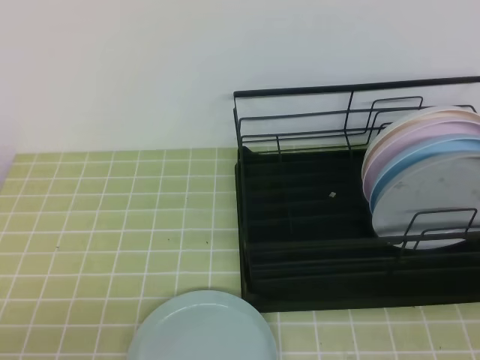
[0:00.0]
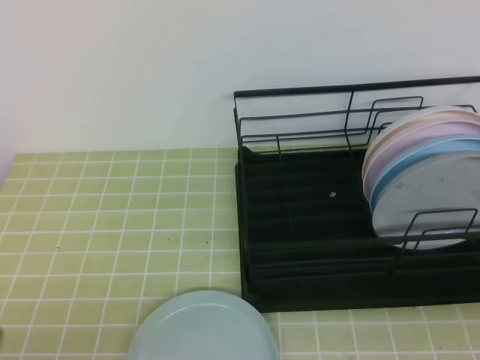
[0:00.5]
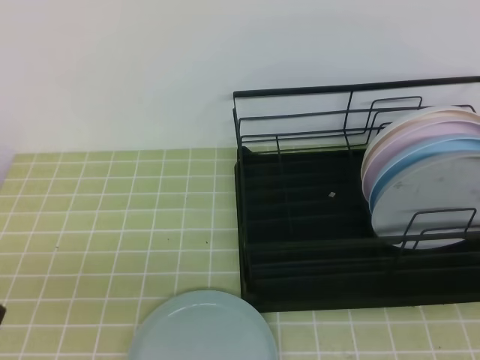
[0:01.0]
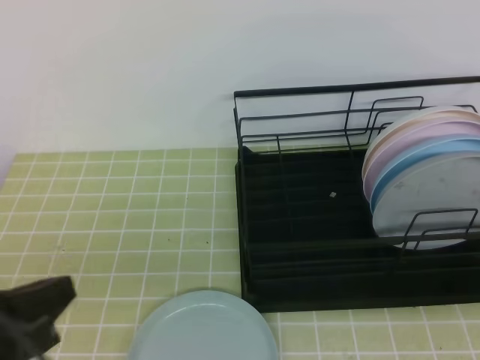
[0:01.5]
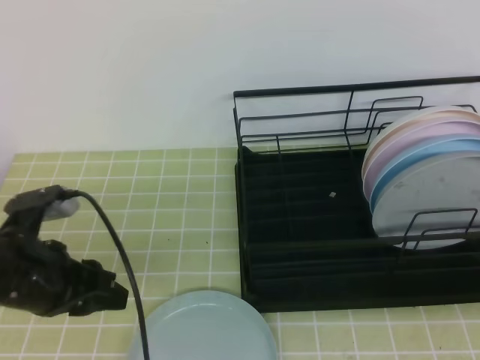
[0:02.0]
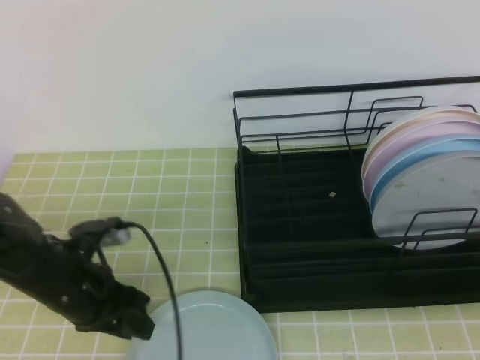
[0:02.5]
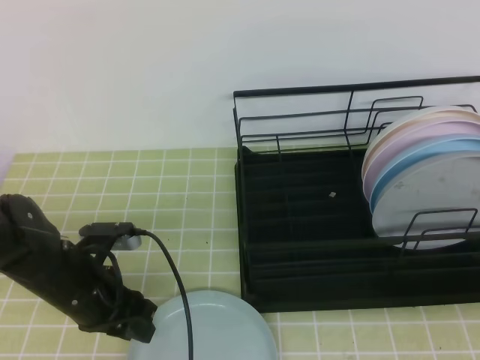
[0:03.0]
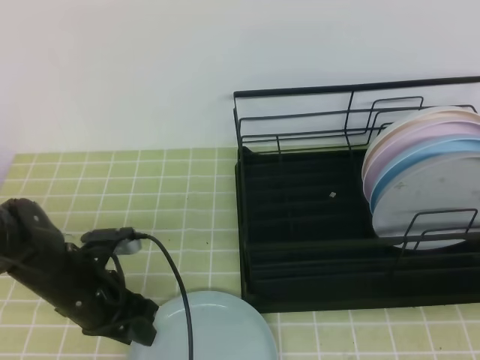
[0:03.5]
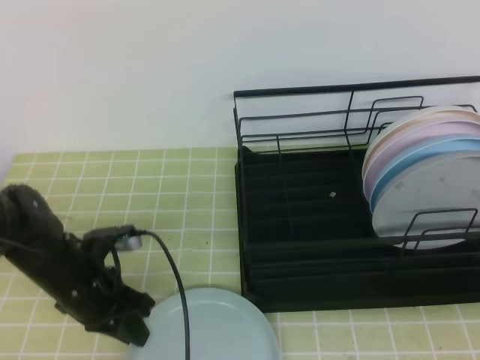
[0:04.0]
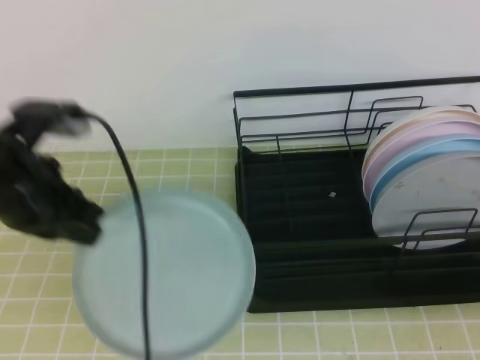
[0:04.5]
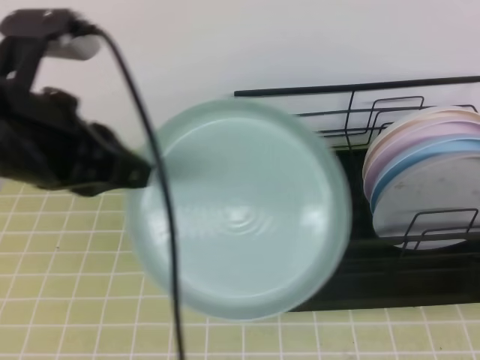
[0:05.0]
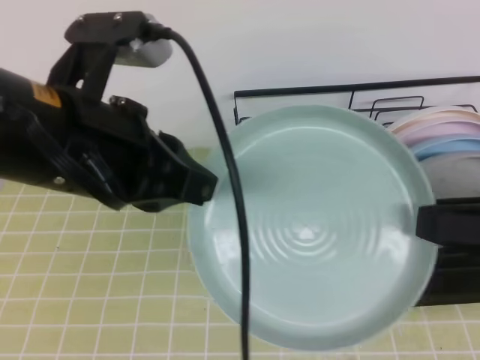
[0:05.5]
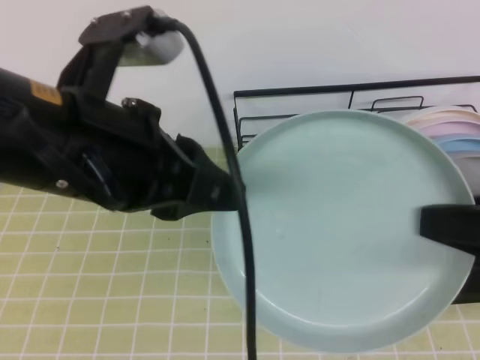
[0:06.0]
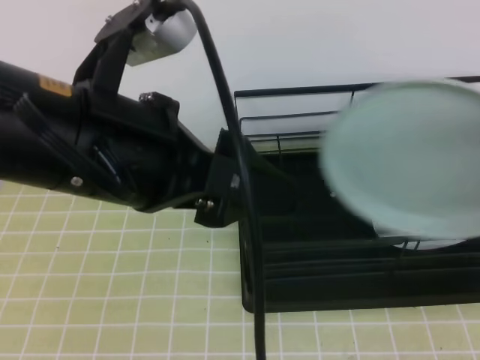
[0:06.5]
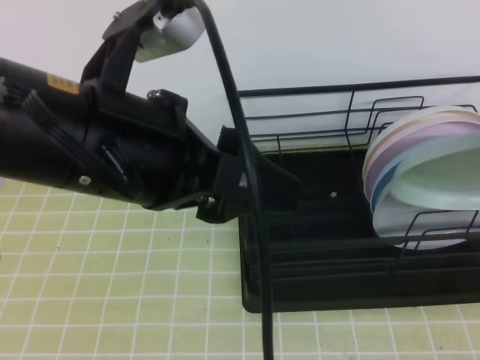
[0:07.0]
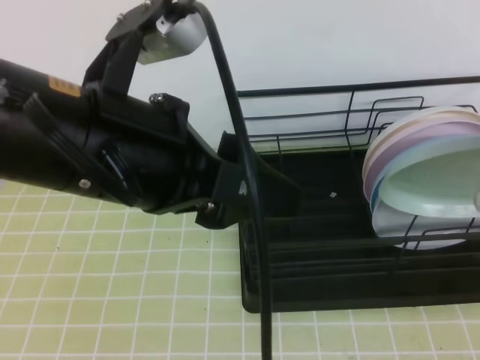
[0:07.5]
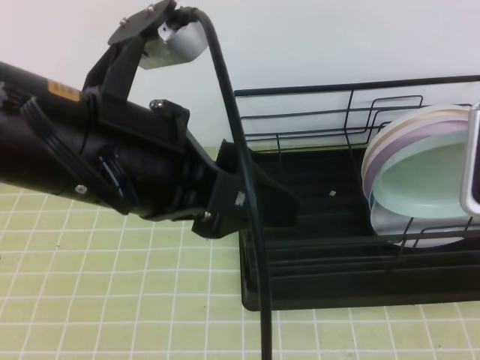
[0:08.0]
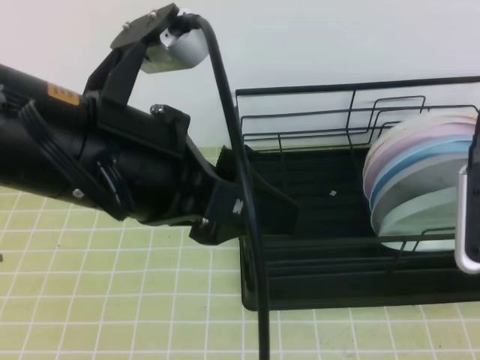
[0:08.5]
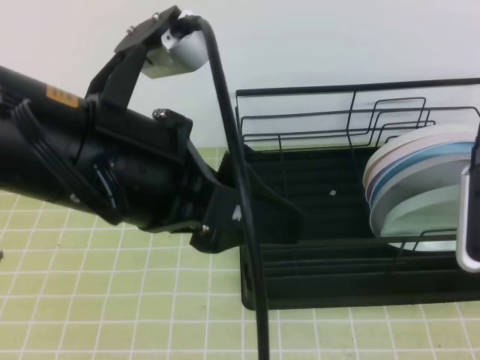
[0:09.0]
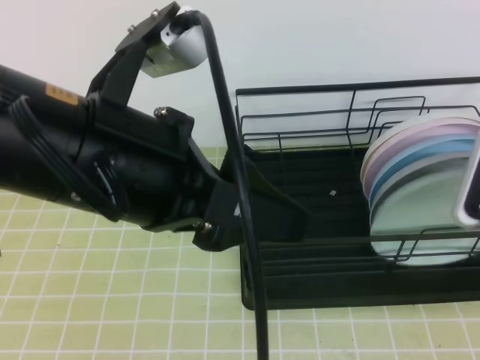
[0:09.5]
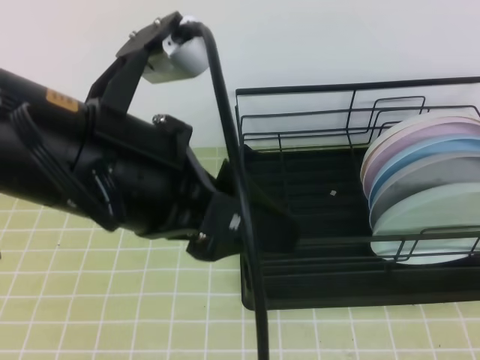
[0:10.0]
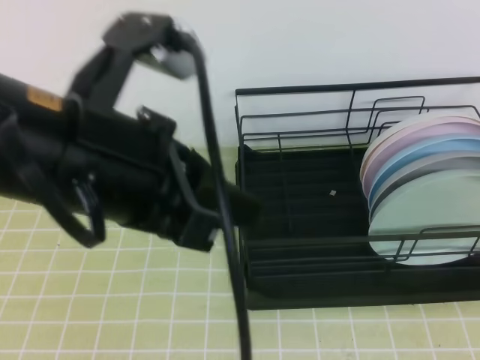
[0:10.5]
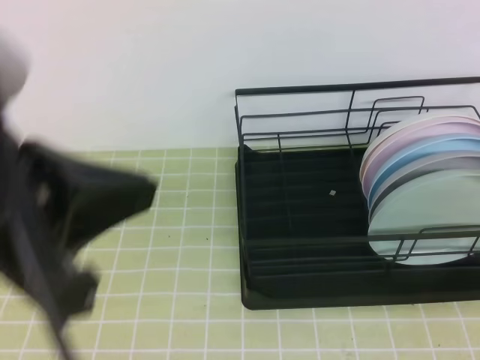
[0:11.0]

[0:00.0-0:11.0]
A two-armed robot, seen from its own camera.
Step, 0:00.0 to 0:03.0: Left grab the green plate.
Step, 0:05.0 to 0:08.0: Right place it at the front of the shelf.
0:00.0 to 0:02.0: The left gripper shifts some 15 cm forward, and opens its fingers.
0:02.0 to 0:03.5: The left gripper heads downward, covering about 10 cm.
0:03.5 to 0:05.5: The right gripper is displaced forward by about 10 cm, and opens its fingers. The left gripper goes some 25 cm upward, and closes up.
0:05.5 to 0:07.5: The left gripper opens. The right gripper goes some 5 cm forward, and closes up.
0:07.5 to 0:09.0: The right gripper shifts roughly 5 cm downward.
0:09.0 to 0:11.0: The left gripper is displaced to the left and backward by approximately 10 cm, and closes up, while the right gripper moves backward and upward, about 25 cm, and opens and closes again.

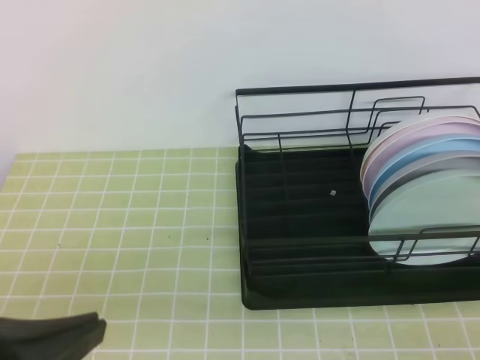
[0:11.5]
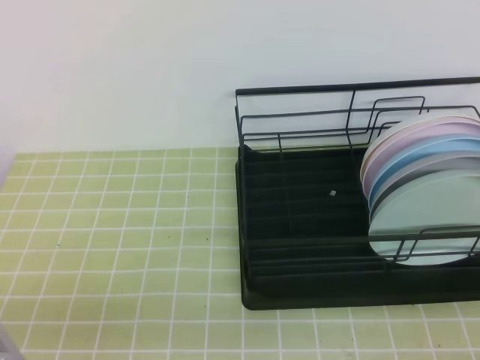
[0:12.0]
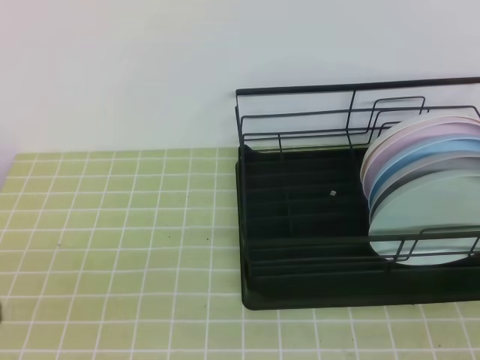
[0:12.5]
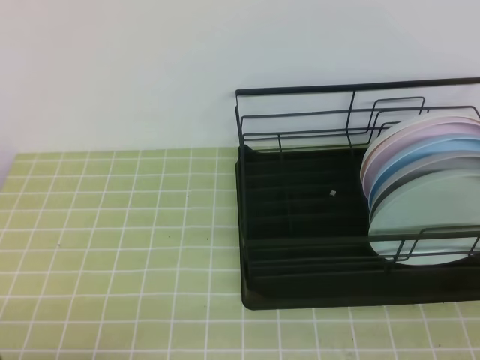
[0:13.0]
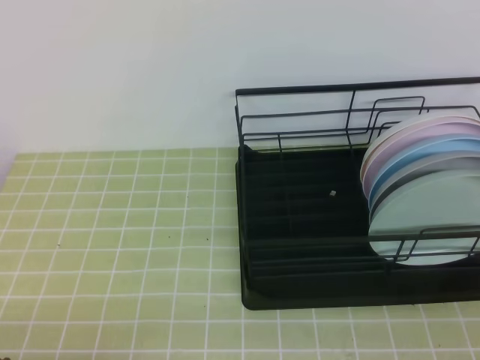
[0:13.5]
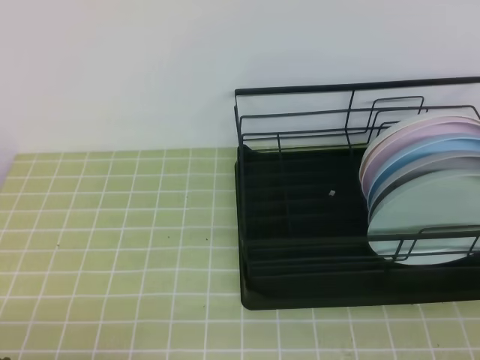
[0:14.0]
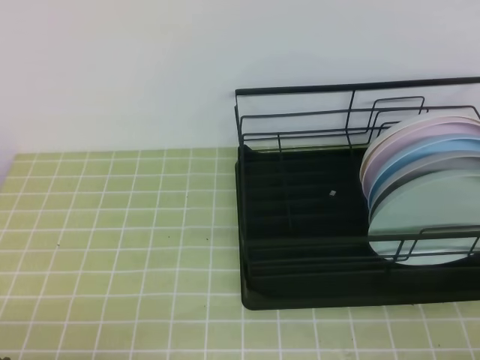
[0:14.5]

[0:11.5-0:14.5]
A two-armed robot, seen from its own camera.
0:11.5 to 0:13.0: The right gripper goes roughly 5 cm downward. Meanwhile the left gripper shifts some 15 cm downward and to the left.
